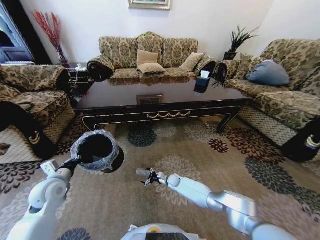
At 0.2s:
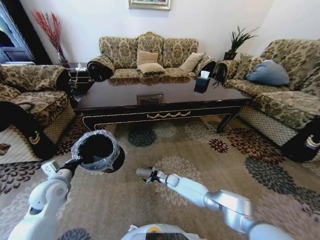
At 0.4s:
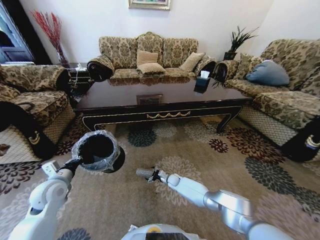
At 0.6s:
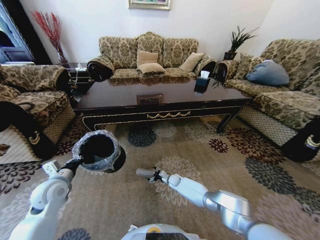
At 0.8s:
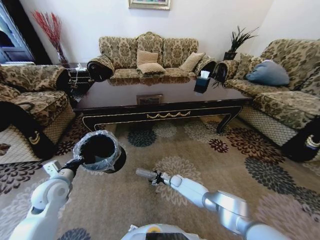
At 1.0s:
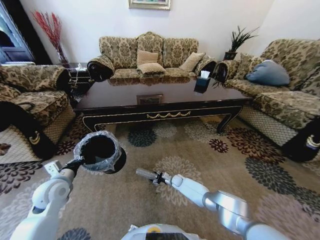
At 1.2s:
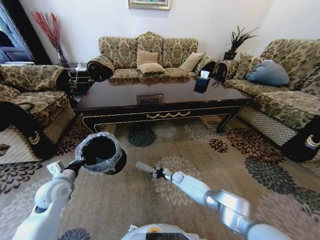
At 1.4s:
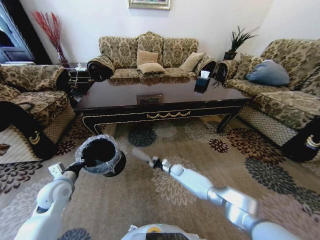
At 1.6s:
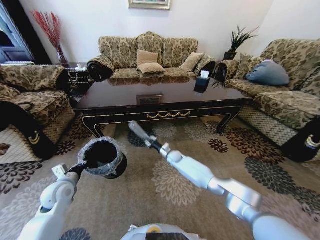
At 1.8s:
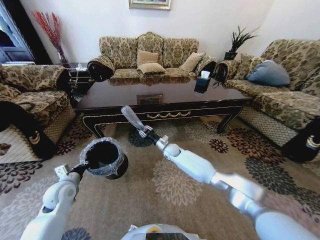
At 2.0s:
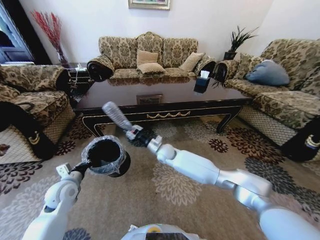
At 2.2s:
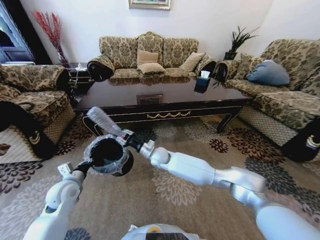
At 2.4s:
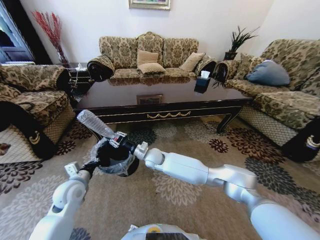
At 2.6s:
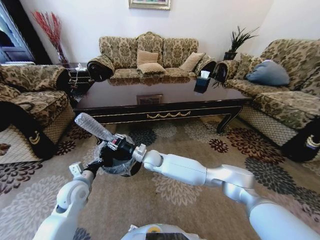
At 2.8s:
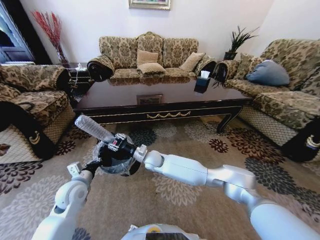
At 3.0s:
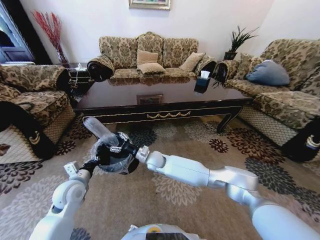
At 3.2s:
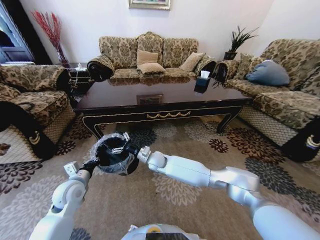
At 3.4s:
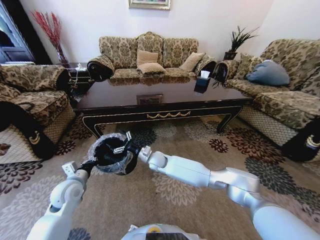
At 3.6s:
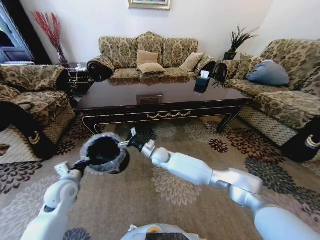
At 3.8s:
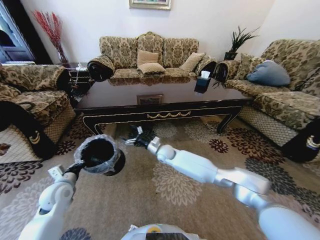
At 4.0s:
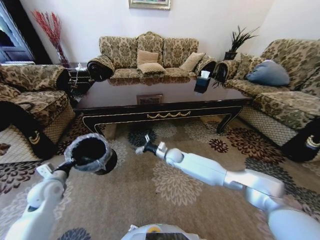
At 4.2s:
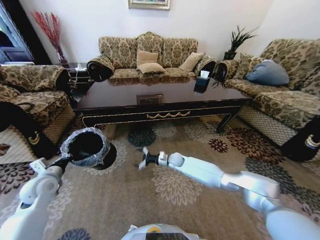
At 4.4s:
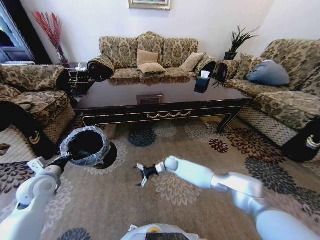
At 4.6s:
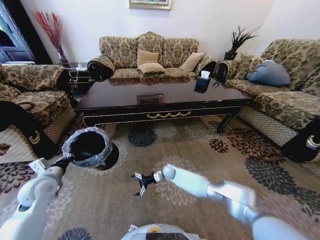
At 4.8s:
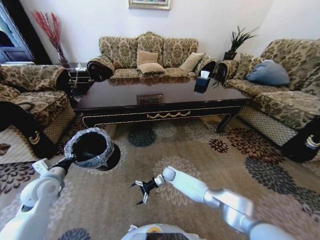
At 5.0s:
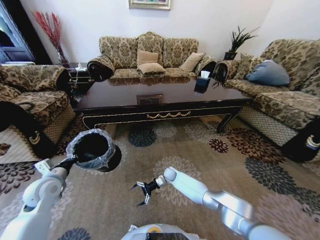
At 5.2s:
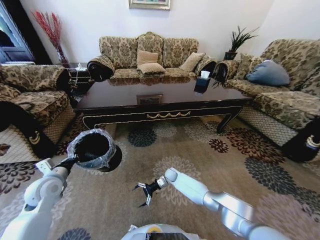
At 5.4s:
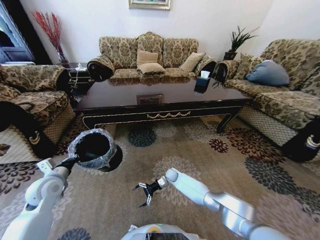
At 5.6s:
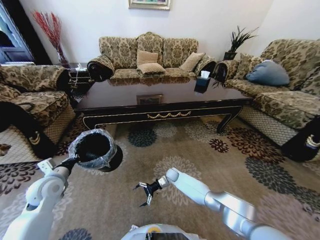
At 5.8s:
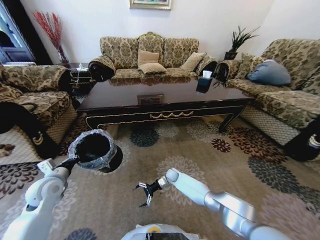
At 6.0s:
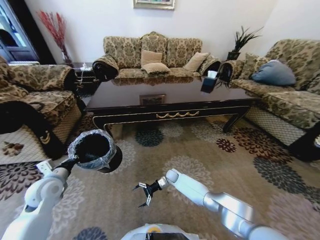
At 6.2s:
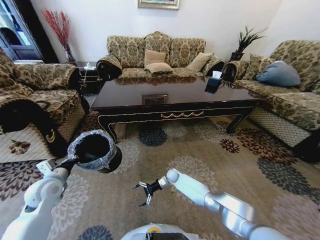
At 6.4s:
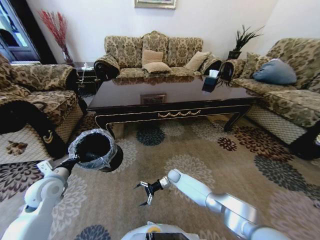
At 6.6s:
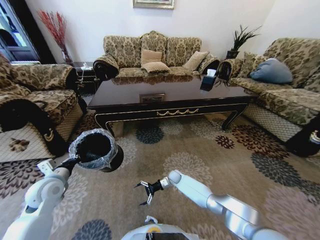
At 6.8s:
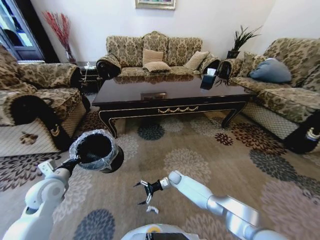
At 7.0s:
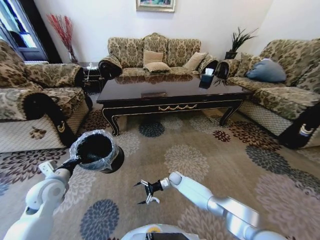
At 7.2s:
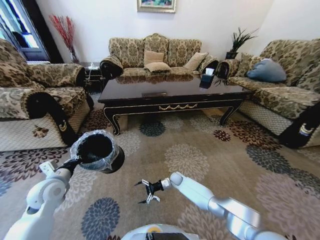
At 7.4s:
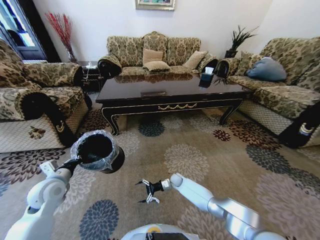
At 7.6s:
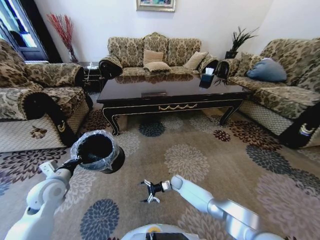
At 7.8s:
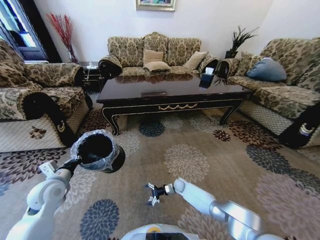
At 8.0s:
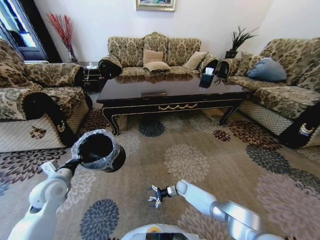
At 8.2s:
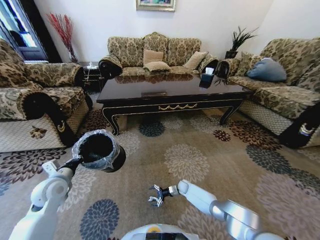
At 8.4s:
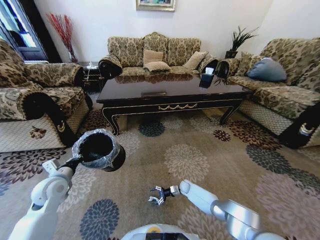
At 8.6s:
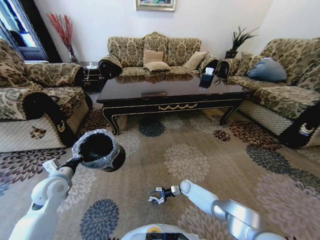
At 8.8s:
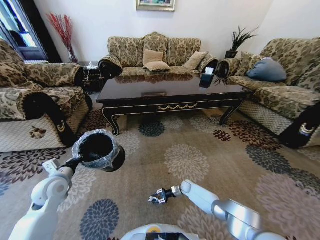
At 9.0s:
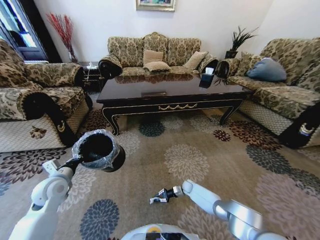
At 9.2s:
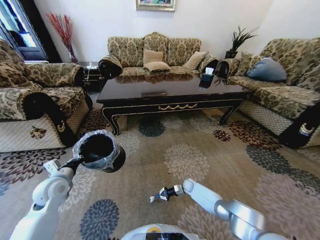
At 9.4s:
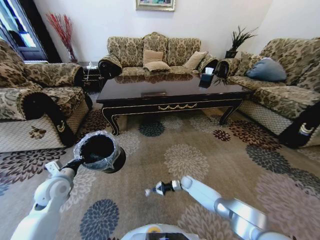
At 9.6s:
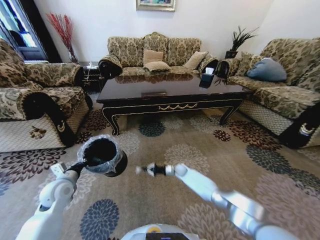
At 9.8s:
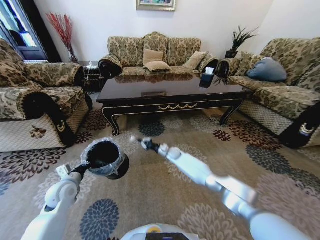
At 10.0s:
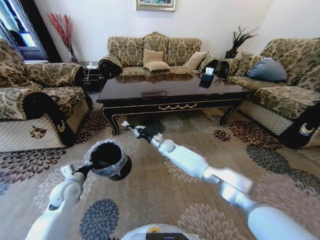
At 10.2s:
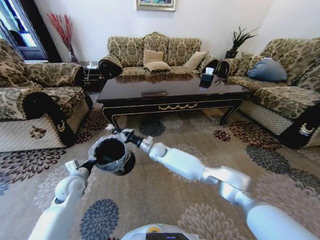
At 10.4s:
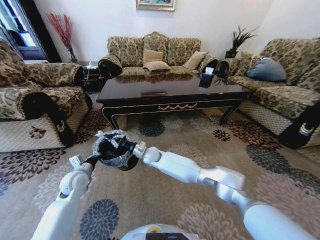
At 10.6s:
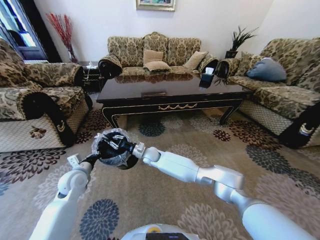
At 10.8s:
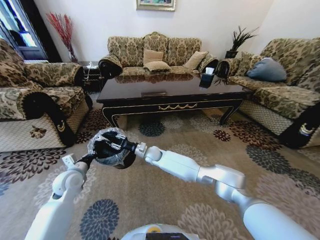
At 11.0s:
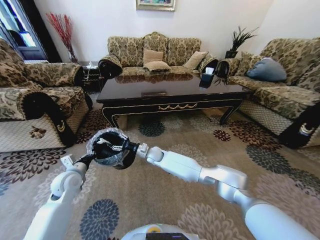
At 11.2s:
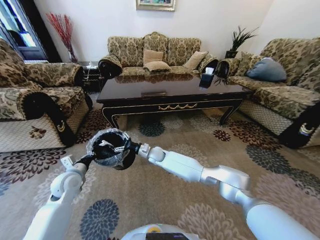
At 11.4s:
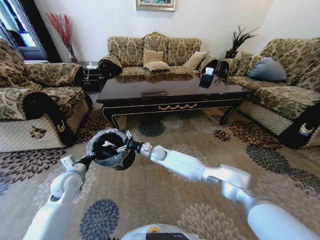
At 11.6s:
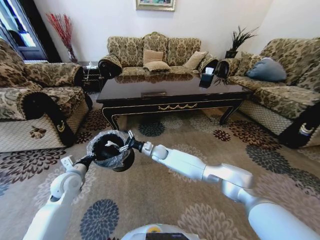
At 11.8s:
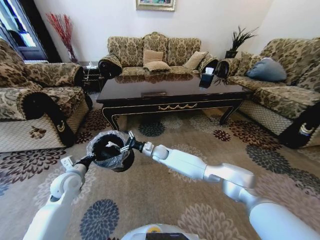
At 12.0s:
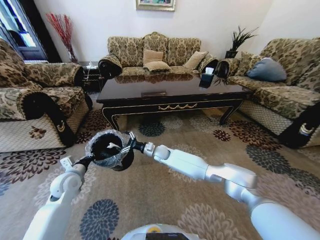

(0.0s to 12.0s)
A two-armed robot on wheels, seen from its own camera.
Task of the whole recording: Move to the front of the table and pick up the trash from the floor, then place it into the trash bin.
0.0s - 1.6s: The right gripper is displaced upward and forward by some 15 cm, and closes up.
1.6s - 3.0s: The right gripper is displaced to the left, upward and backward by roughly 20 cm, and opens. The left gripper goes roughly 5 cm to the right.
3.0s - 4.4s: The right gripper shifts roughly 15 cm downward, to the right and forward. The left gripper goes about 10 cm to the left.
4.4s - 6.0s: The right gripper moves downward, approximately 10 cm.
6.0s - 7.6s: The right gripper shifts by about 5 cm.
7.6s - 9.0s: The right gripper heads to the right, covering about 10 cm, and closes up.
9.0s - 10.4s: The left gripper is displaced to the right by approximately 5 cm; the right gripper is displaced upward and to the left by approximately 40 cm.
10.4s - 12.0s: The right gripper moves to the right, approximately 5 cm, and opens up.

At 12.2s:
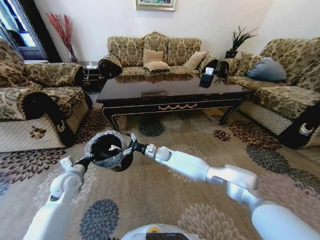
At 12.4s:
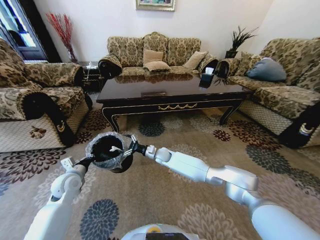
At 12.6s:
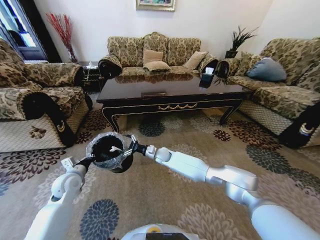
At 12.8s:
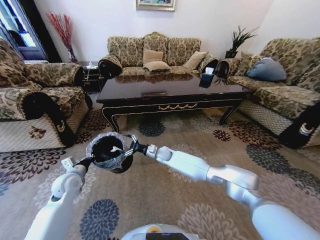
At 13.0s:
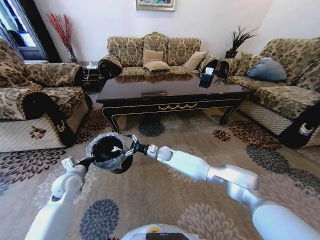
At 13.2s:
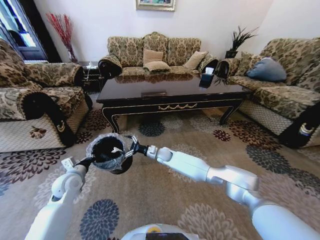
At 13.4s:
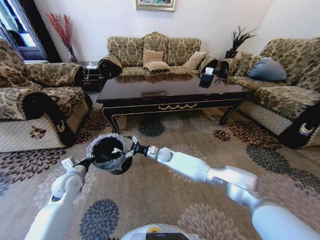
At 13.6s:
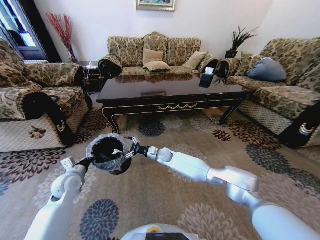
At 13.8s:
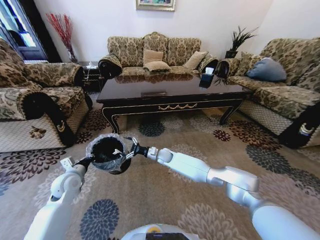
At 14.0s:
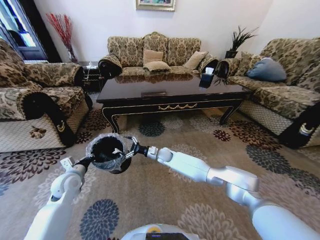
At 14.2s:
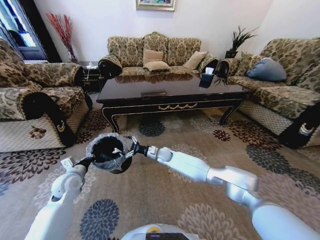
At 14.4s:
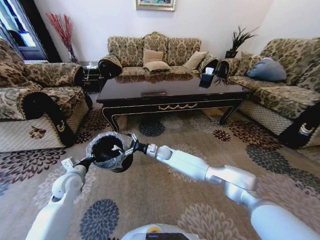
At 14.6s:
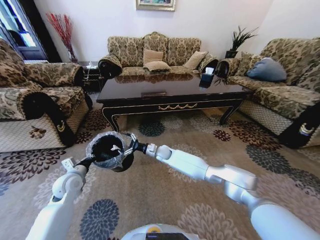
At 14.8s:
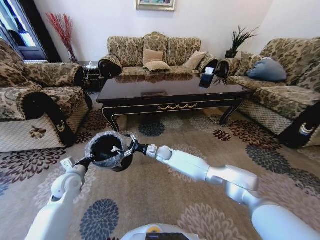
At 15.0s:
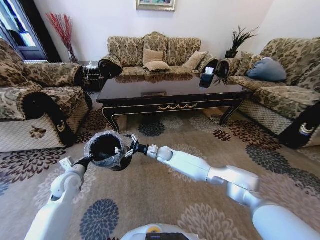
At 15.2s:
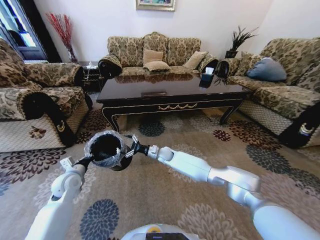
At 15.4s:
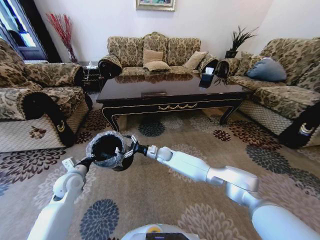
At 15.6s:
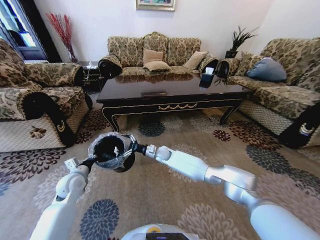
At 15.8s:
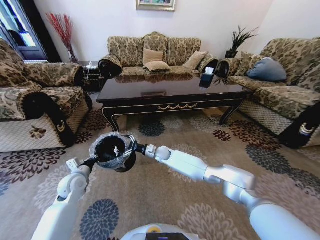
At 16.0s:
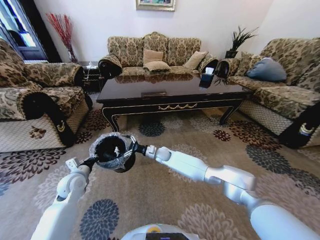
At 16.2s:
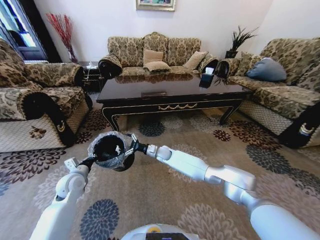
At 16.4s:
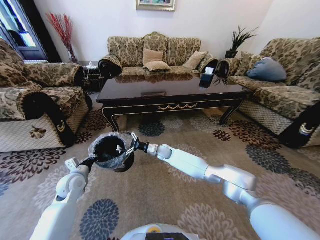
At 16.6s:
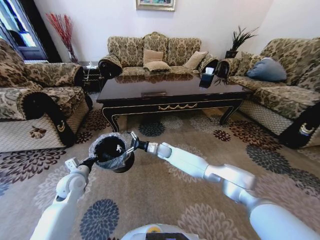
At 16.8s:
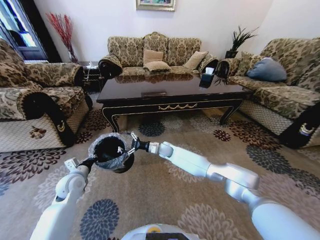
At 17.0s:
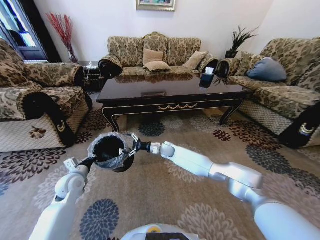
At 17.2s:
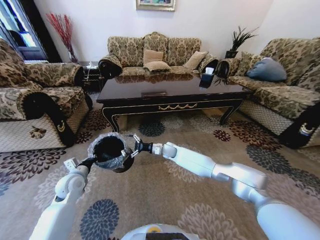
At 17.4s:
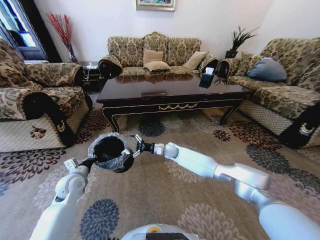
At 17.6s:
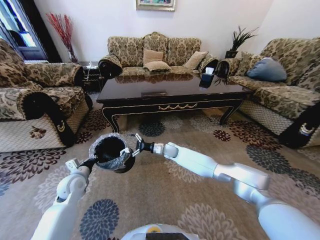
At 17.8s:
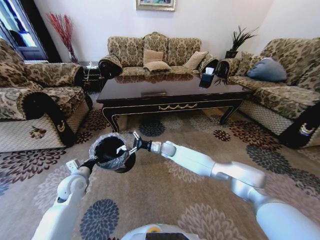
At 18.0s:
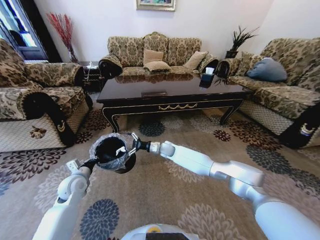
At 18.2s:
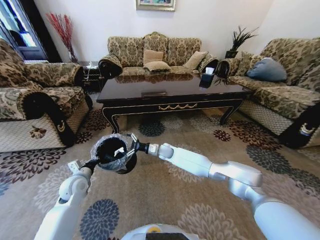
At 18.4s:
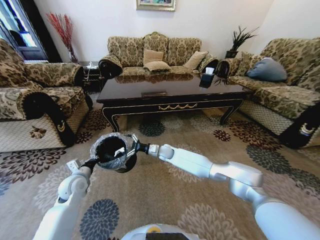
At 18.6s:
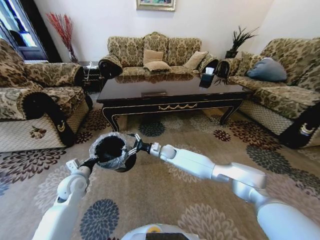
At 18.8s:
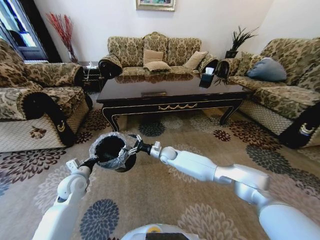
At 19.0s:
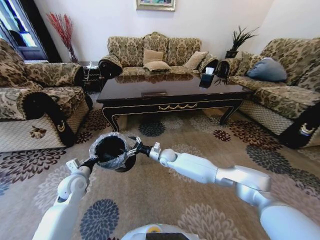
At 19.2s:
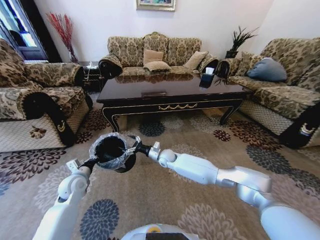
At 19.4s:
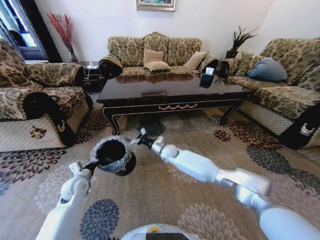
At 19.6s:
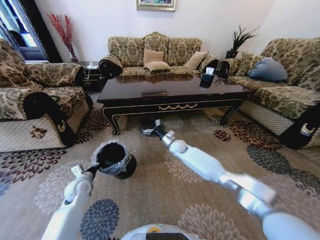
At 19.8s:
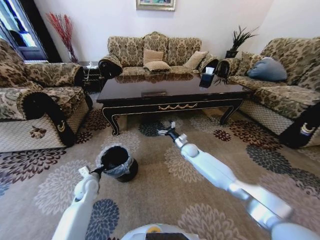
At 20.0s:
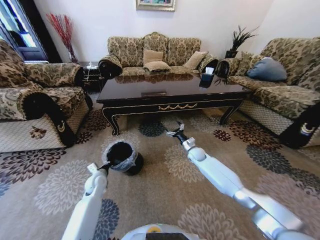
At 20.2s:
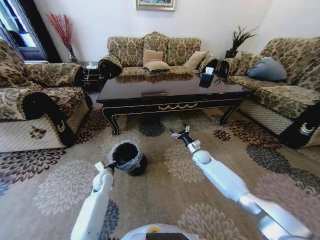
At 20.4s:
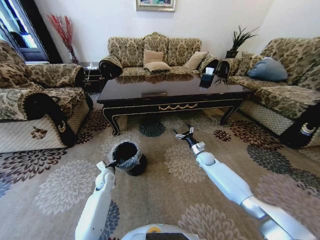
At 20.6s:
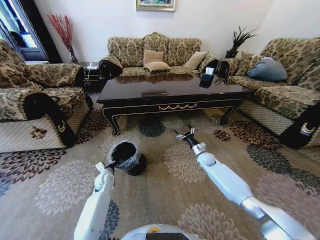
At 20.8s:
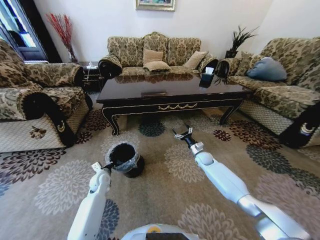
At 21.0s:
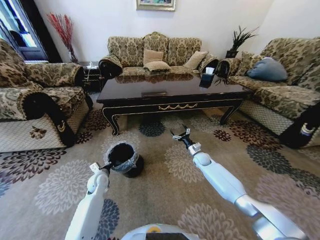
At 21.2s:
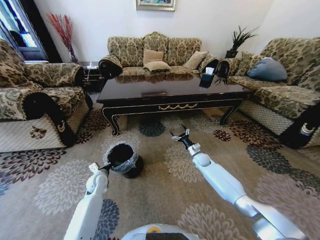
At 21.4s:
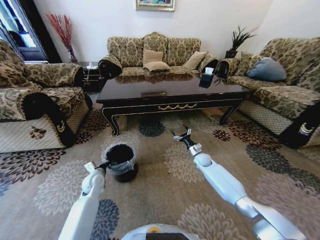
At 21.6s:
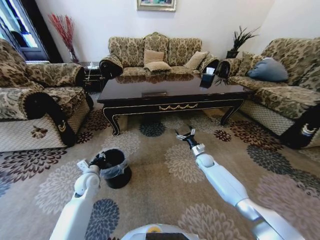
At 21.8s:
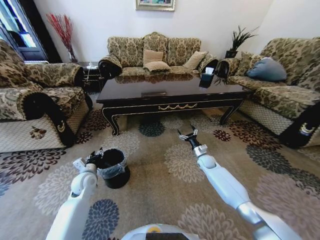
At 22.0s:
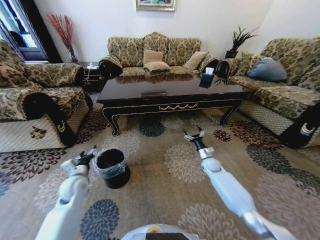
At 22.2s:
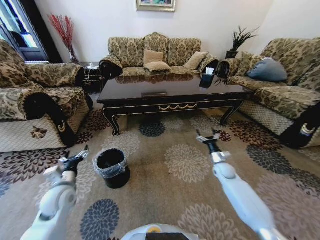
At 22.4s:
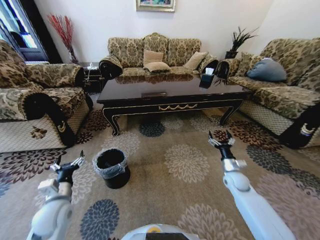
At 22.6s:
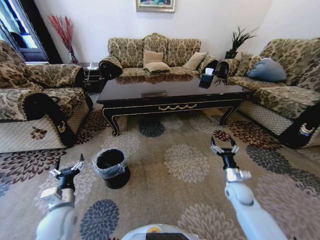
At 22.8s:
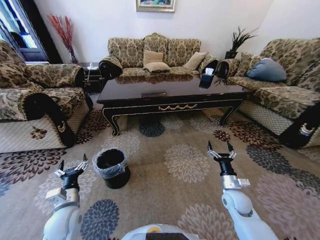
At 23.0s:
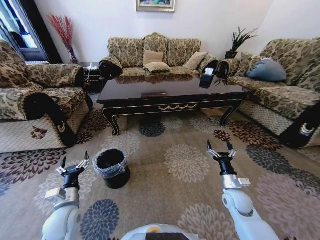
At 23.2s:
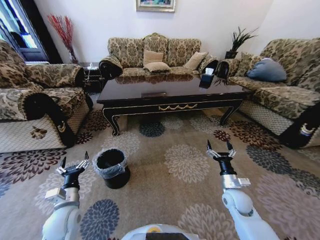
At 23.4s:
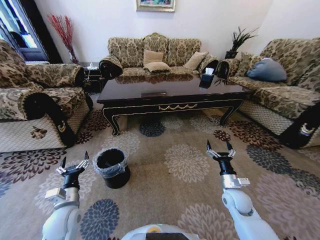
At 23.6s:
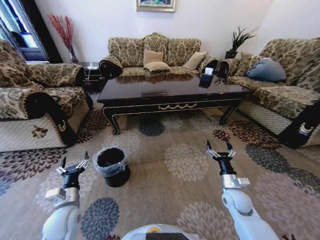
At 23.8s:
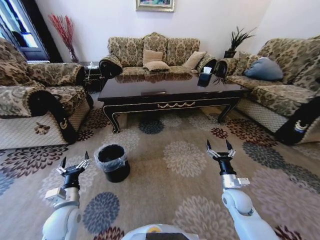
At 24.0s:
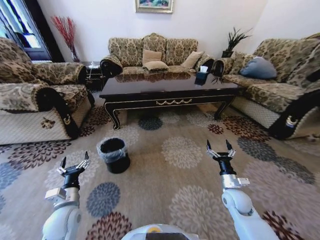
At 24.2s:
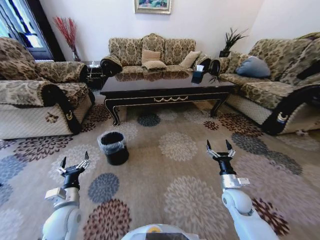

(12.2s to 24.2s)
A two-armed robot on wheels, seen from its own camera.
Task of the whole recording: Move to the front of the table and pick up the trash from the floor, then place it into the trash bin.
12.2s - 16.6s: The grippers make only small movements.
16.6s - 18.2s: The grippers move only a little.
18.2s - 19.8s: The left gripper moves downward, roughly 5 cm, while the right gripper travels to the right by roughly 15 cm.
19.8s - 21.2s: The right gripper shifts approximately 5 cm to the right.
21.2s - 22.6s: The right gripper travels backward and to the right by some 20 cm, while the left gripper travels backward and upward by approximately 20 cm, and opens up.
